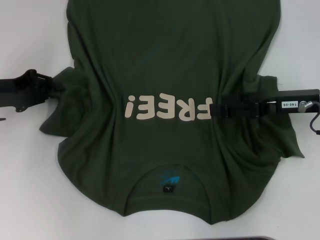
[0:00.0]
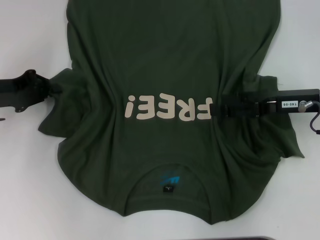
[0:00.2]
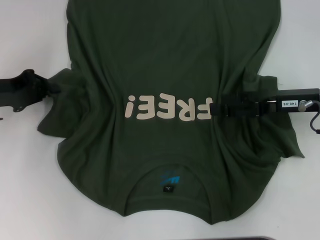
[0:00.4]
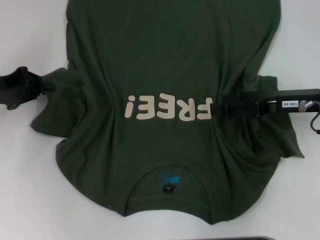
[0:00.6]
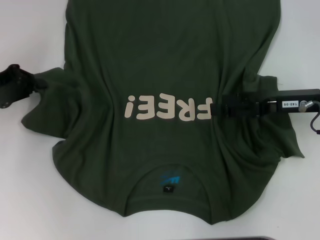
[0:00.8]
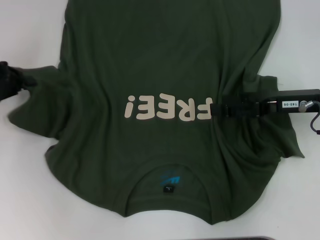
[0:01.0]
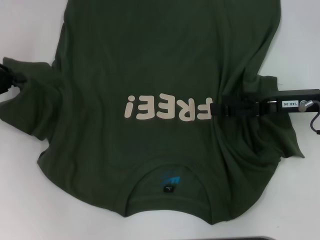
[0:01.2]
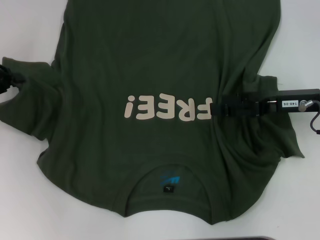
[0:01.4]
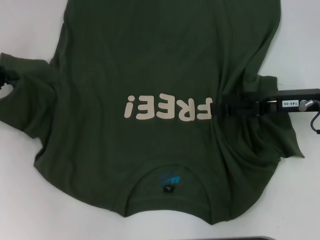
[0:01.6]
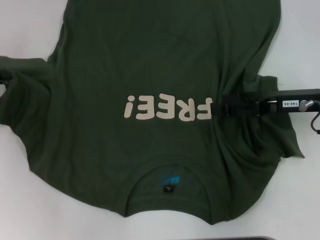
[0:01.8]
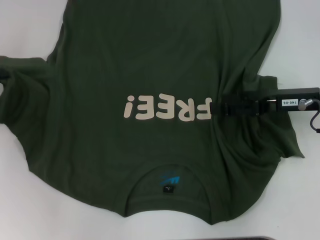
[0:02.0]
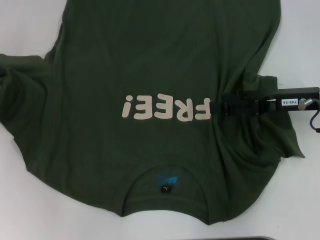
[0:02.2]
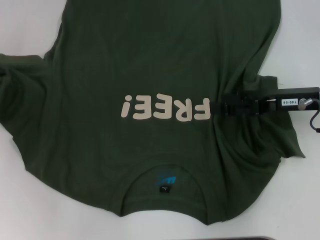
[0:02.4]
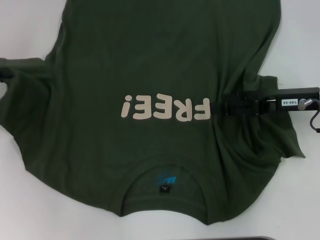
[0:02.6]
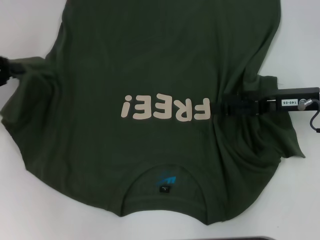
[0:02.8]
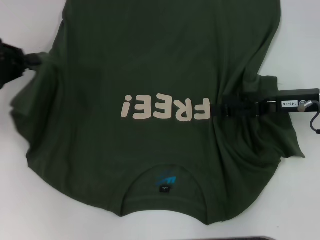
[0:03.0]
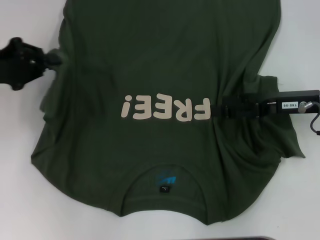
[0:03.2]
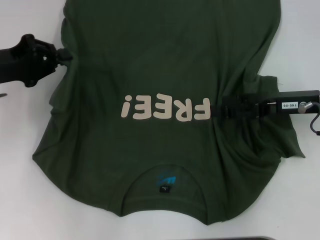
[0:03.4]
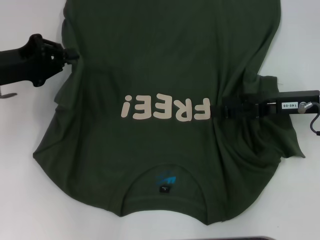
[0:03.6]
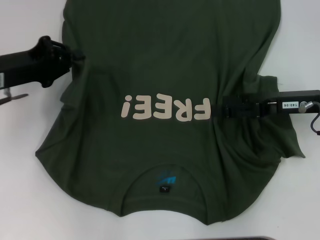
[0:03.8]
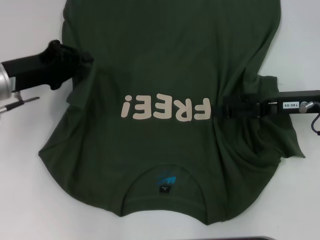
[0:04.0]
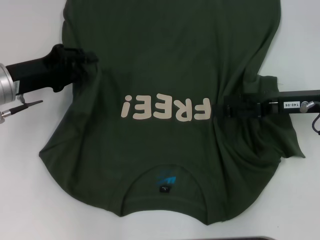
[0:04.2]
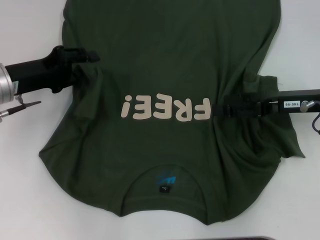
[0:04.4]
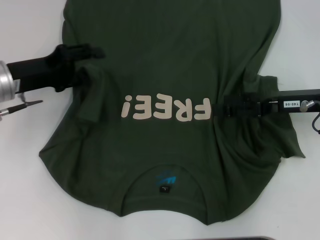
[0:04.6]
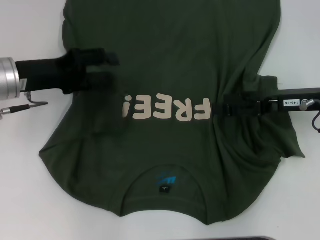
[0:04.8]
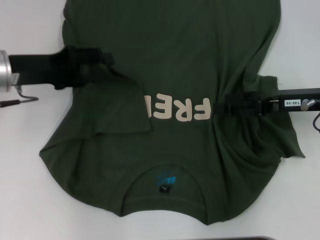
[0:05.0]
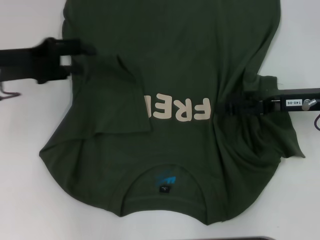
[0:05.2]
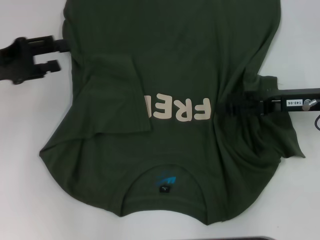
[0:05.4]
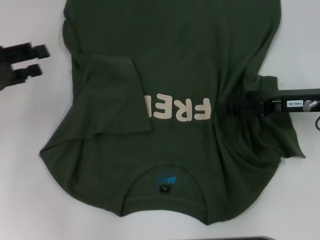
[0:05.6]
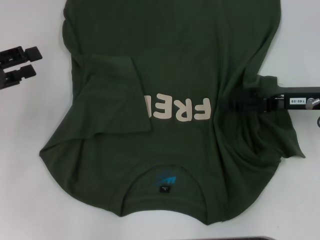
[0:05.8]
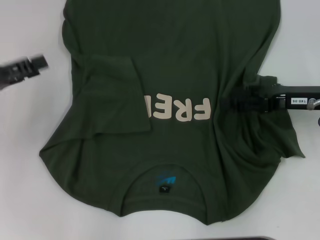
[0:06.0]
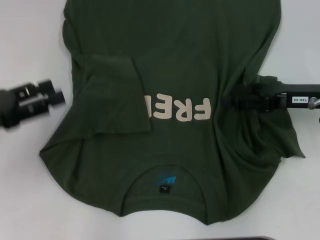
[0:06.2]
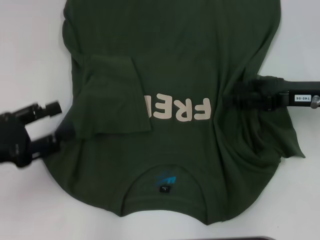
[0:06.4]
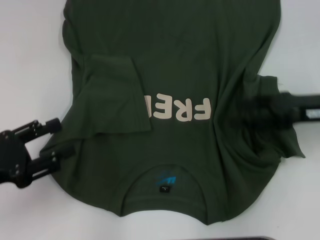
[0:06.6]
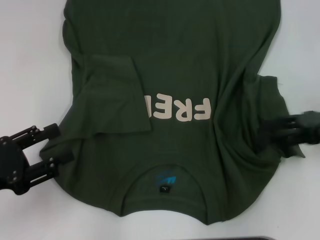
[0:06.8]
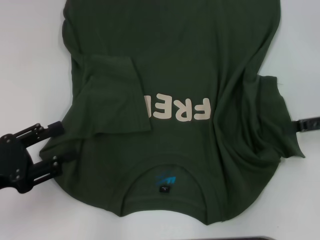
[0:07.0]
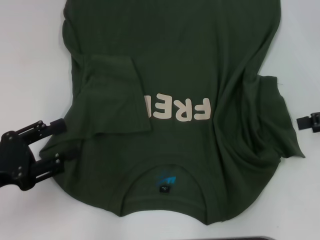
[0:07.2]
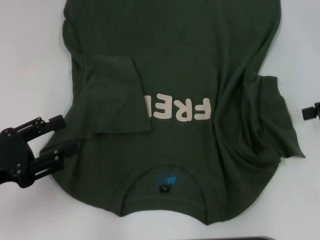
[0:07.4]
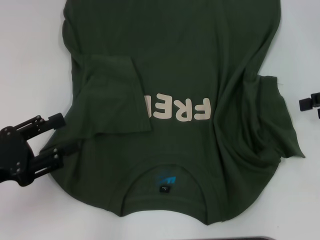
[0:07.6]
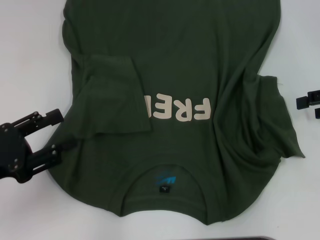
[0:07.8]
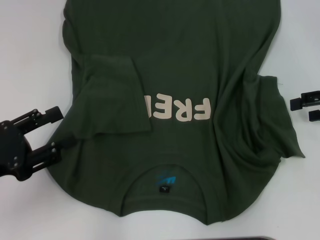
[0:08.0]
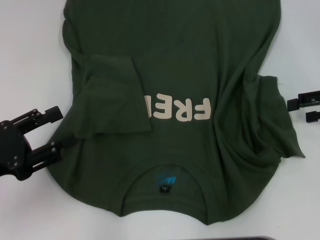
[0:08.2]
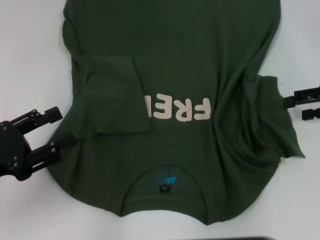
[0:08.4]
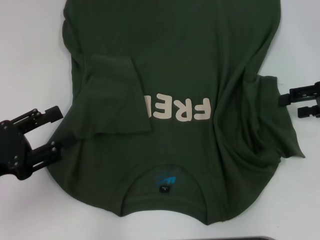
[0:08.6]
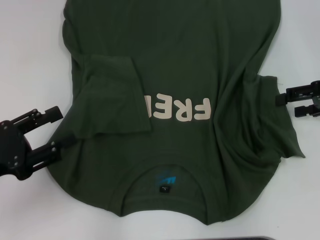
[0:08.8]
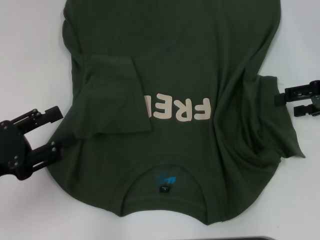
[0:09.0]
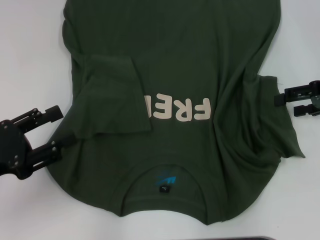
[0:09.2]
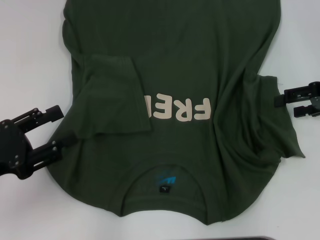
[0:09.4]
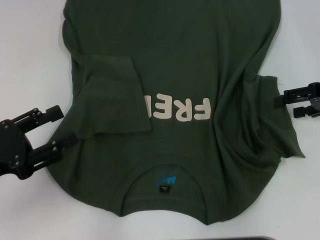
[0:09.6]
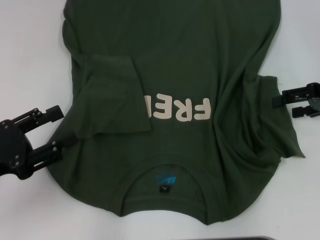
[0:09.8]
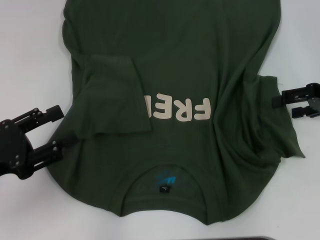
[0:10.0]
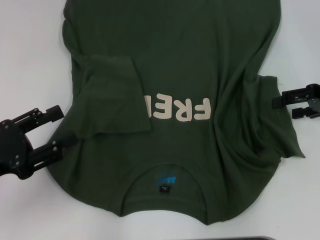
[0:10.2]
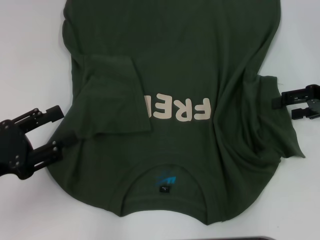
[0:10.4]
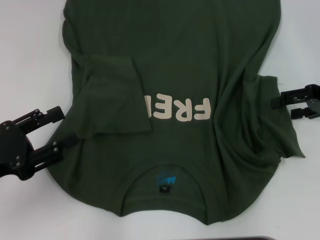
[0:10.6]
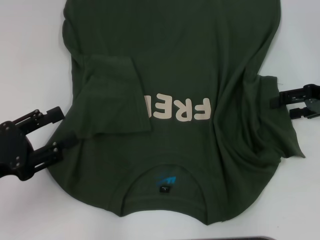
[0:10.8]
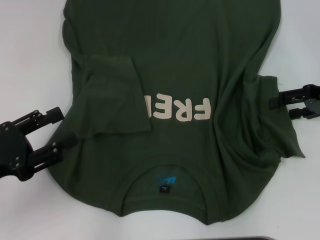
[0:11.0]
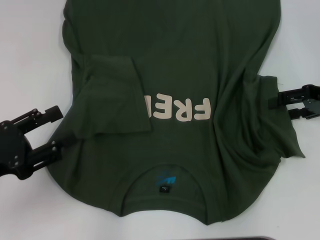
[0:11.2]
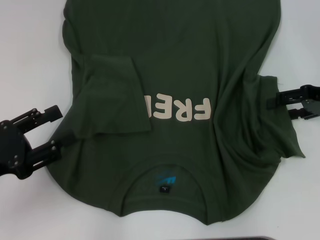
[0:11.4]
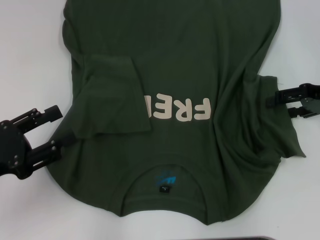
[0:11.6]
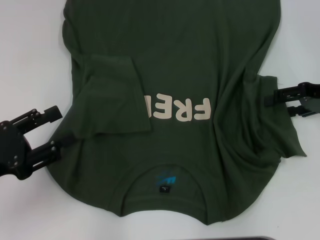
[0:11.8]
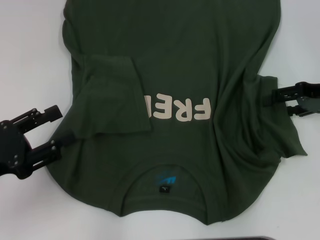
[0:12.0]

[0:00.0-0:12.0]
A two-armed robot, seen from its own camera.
Step, 0:00.0 to 0:05.4: Fold the bottom left sleeve with your left hand.
0:00.0 to 0:01.6: The left gripper shifts approximately 5 cm to the left, and closes its fingers.
0:01.6 to 0:03.0: The grippers stay close to where they were, moving slightly.
0:03.0 to 0:04.4: The left gripper is displaced to the right by approximately 5 cm, and opens its fingers.
0:04.4 to 0:06.0: The left gripper moves to the left and backward, approximately 10 cm, and opens.
0:06.0 to 0:07.6: The left gripper heads backward, covering approximately 10 cm; the right gripper goes approximately 10 cm to the right and upward.
0:07.6 to 0:09.0: The grippers move only a little.
0:09.0 to 0:10.4: The two grippers keep their place.
0:10.4 to 0:12.0: The grippers stay close to where they were, moving slightly.

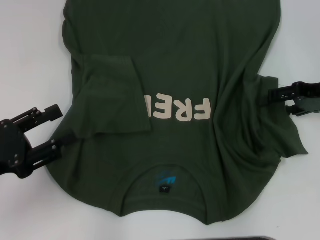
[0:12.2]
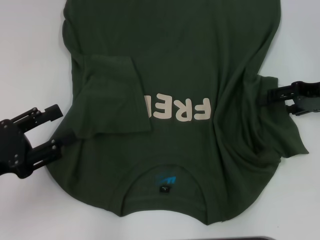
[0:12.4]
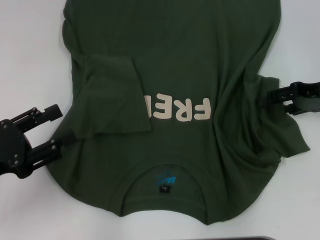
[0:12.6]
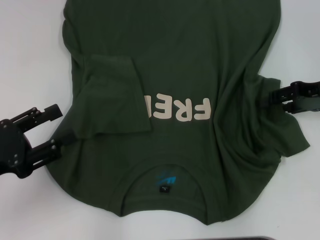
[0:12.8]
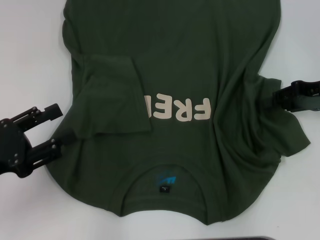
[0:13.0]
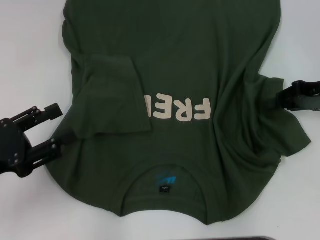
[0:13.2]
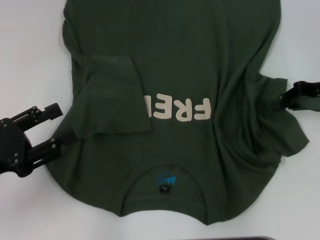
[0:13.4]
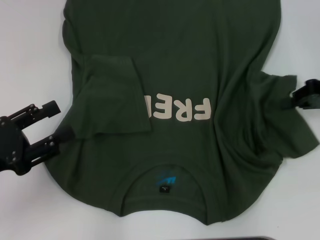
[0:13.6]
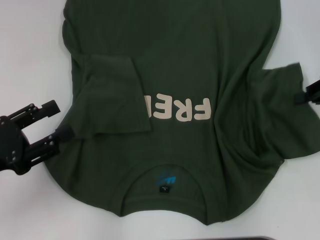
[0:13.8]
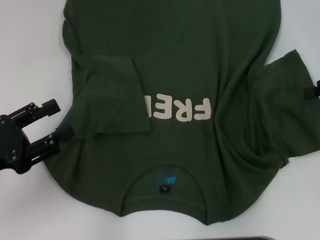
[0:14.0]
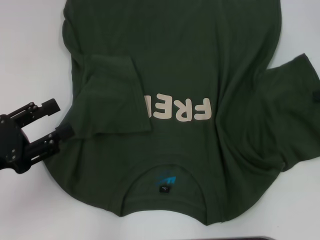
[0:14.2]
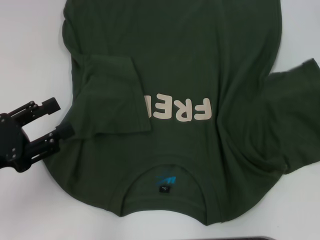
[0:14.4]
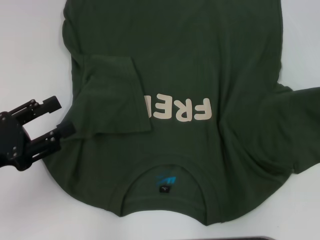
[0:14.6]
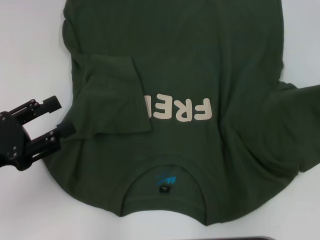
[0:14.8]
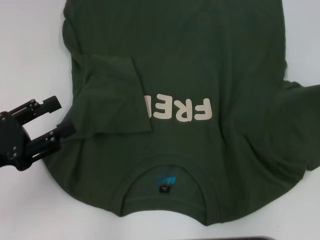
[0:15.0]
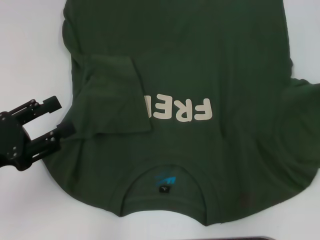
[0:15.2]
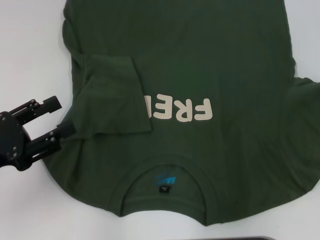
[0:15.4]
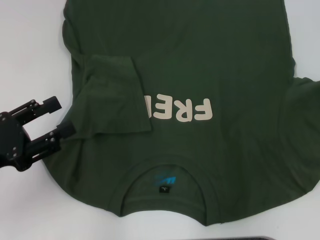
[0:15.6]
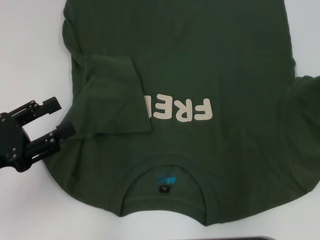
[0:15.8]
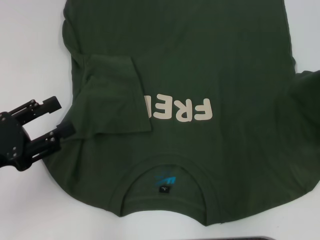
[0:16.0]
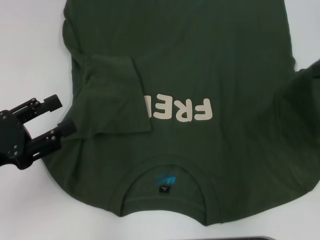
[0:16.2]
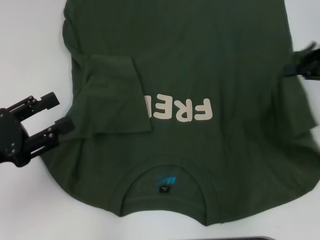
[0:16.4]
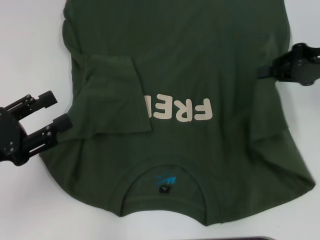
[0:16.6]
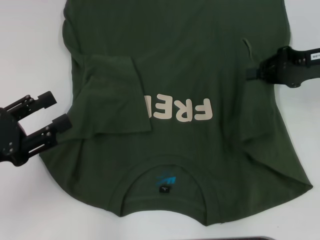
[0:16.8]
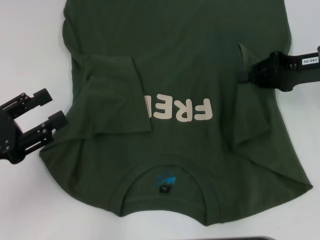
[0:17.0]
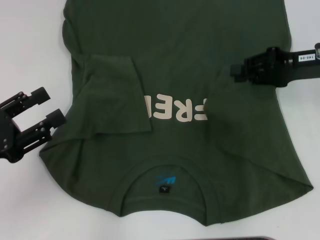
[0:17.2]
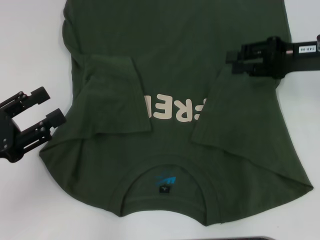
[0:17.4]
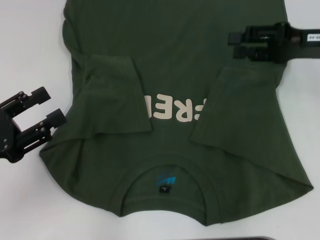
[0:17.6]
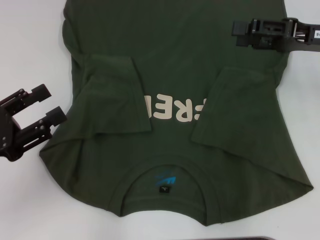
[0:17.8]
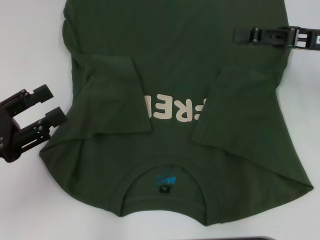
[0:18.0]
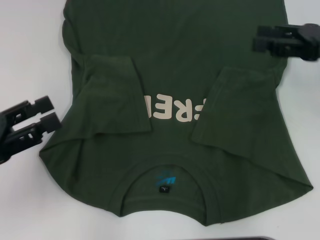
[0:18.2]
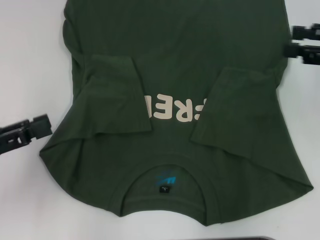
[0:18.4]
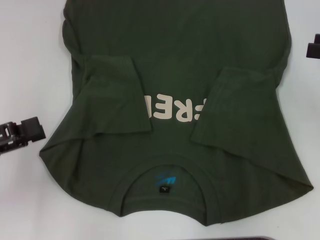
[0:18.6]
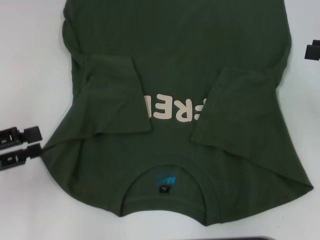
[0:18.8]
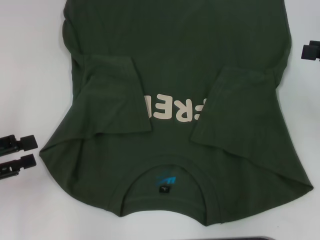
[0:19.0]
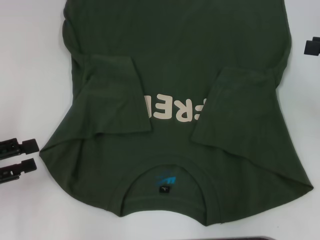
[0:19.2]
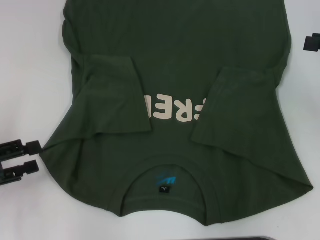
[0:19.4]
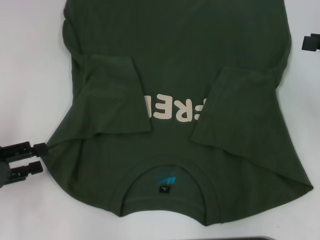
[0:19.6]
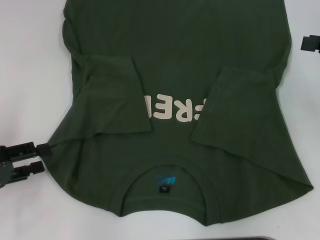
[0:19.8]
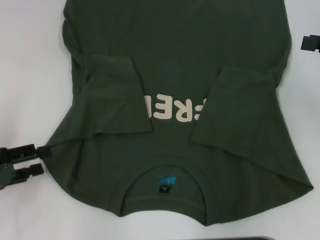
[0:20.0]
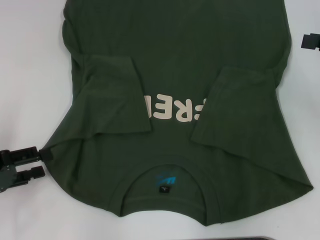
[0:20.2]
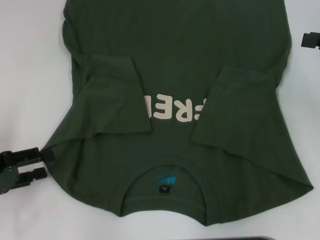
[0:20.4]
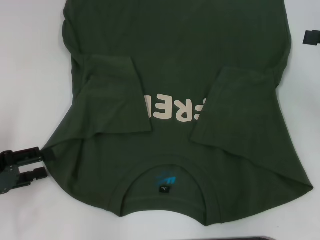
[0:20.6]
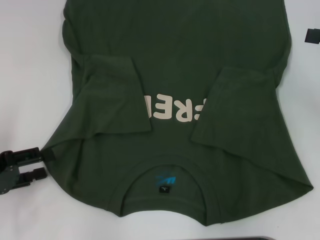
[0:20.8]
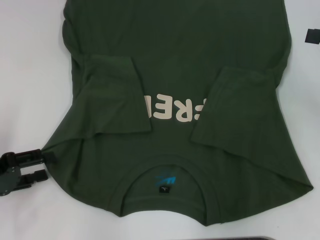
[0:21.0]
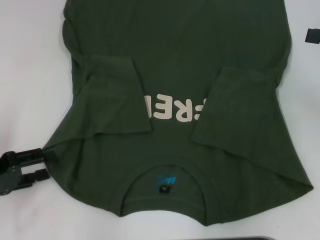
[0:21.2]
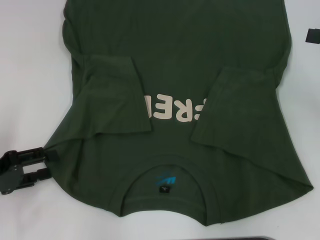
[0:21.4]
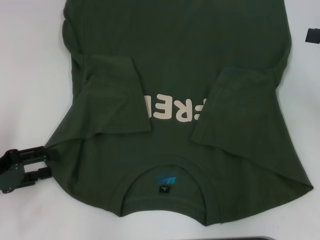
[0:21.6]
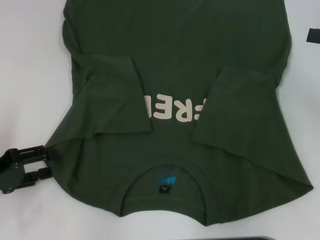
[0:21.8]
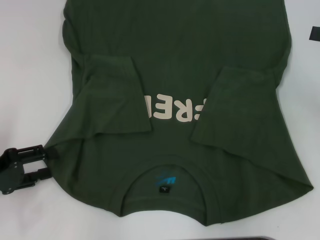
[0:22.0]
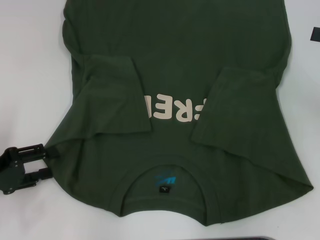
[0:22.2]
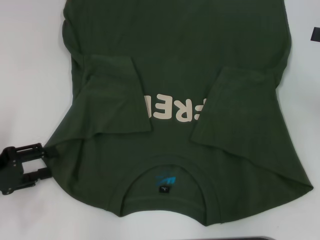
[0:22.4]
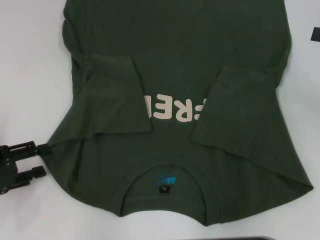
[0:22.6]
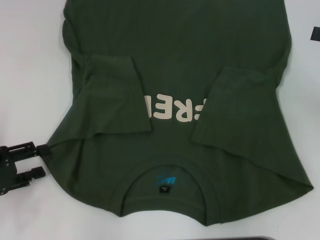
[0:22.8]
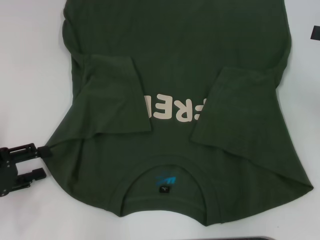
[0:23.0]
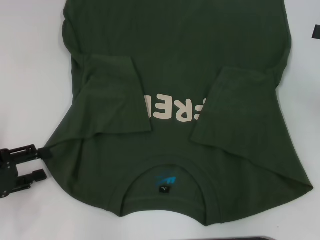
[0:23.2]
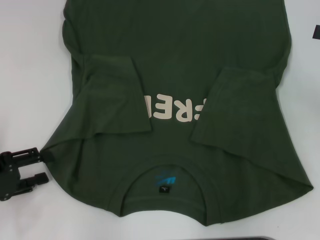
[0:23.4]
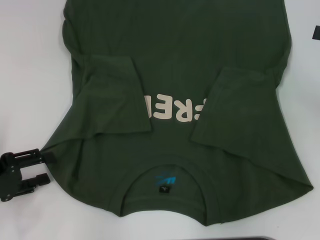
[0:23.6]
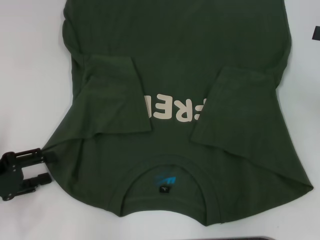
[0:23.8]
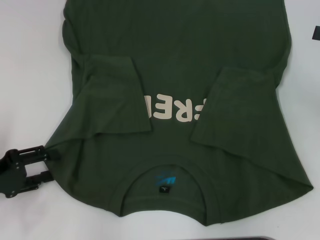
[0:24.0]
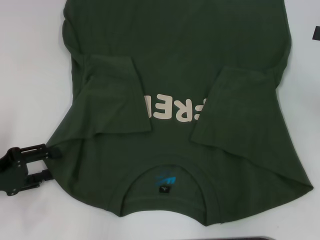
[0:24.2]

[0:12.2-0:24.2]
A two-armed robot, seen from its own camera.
Step, 0:12.2 to 0:17.2: Fold the bottom right sleeve with your right hand.
0:12.2 to 0:13.8: The right gripper closes.
0:13.8 to 0:15.2: The right gripper goes roughly 5 cm to the right.
0:15.2 to 0:16.6: The right gripper goes roughly 10 cm to the left.
0:16.6 to 0:18.2: The right gripper opens up.
0:18.2 to 0:19.8: The right gripper is displaced to the right by some 5 cm.
0:19.8 to 0:22.6: The grippers make only small movements.
0:22.6 to 0:24.2: The two grippers keep their place.
